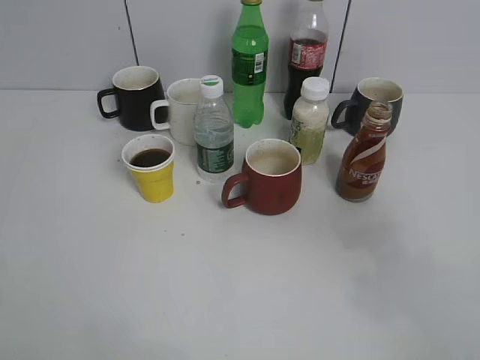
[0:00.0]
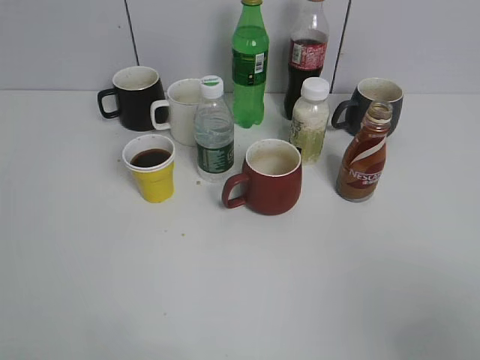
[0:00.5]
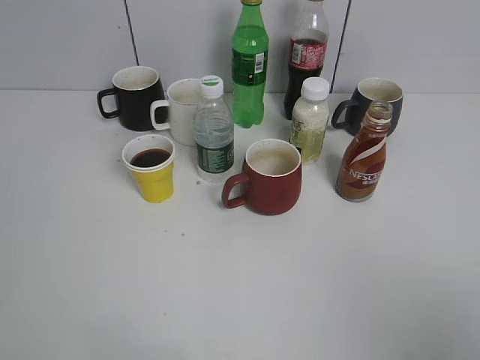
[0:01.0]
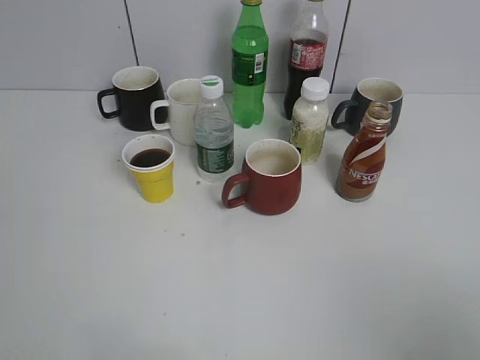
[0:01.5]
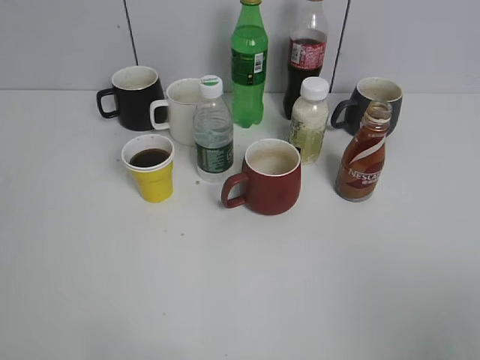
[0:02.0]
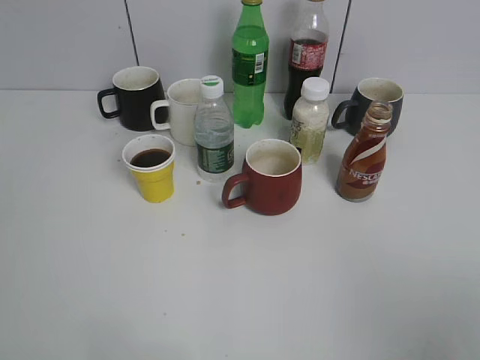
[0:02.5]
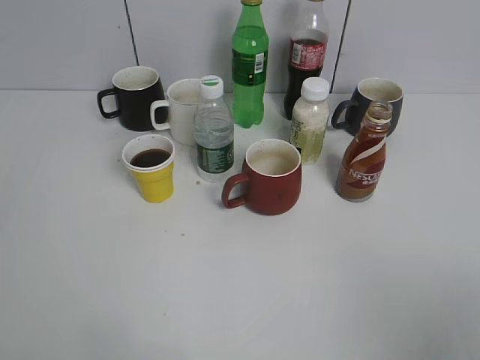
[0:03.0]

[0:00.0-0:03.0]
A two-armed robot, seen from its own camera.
0:00.0 to 0:01.5: The left gripper goes about 10 cm backward, while the right gripper goes about 15 cm backward.
